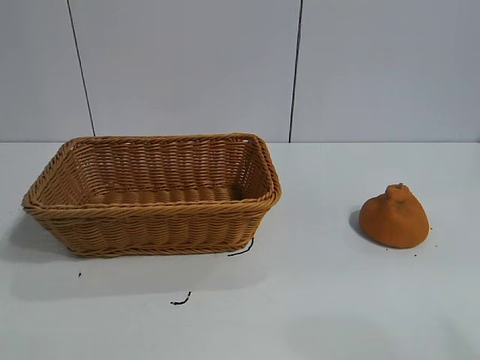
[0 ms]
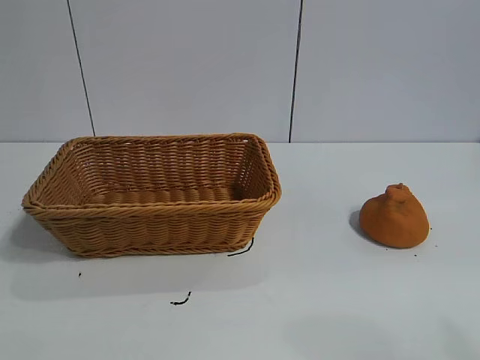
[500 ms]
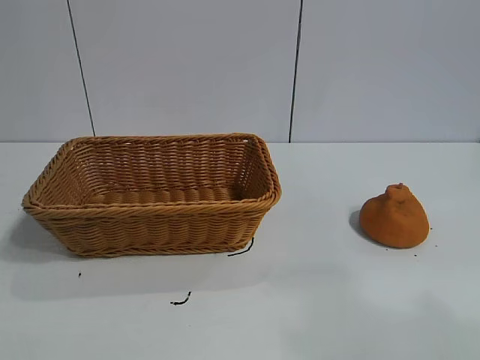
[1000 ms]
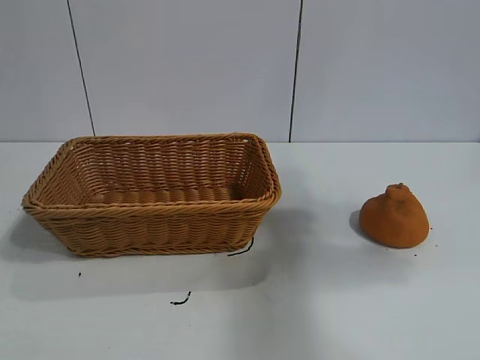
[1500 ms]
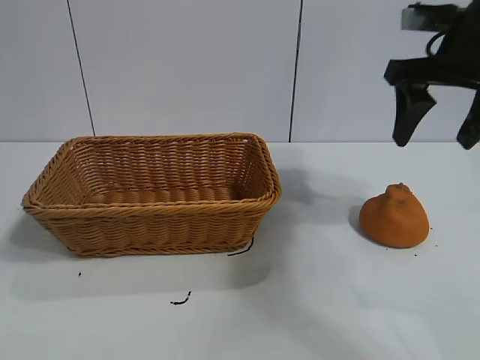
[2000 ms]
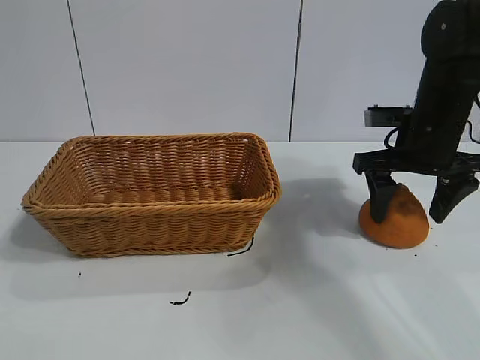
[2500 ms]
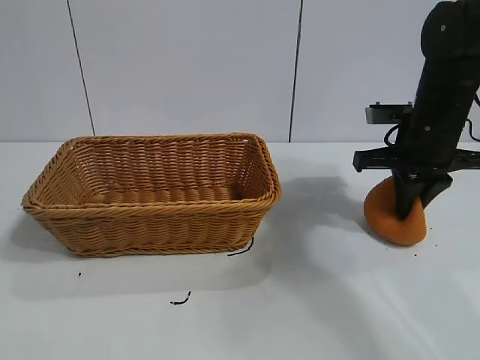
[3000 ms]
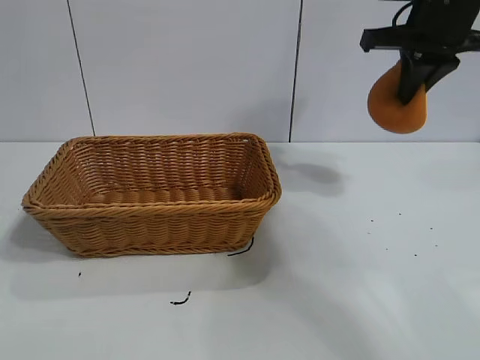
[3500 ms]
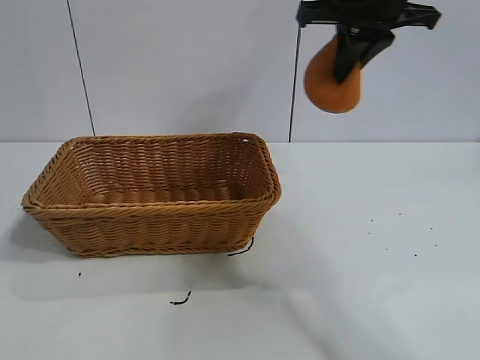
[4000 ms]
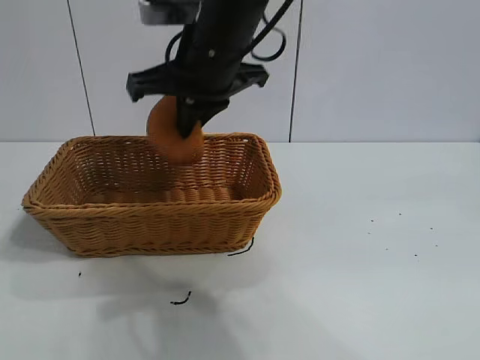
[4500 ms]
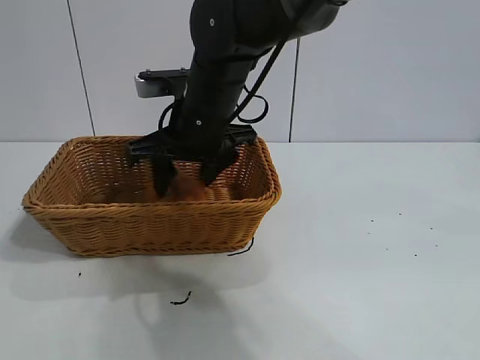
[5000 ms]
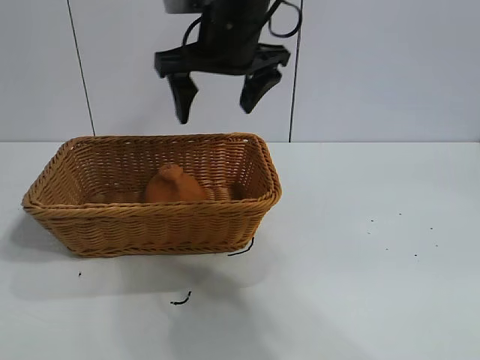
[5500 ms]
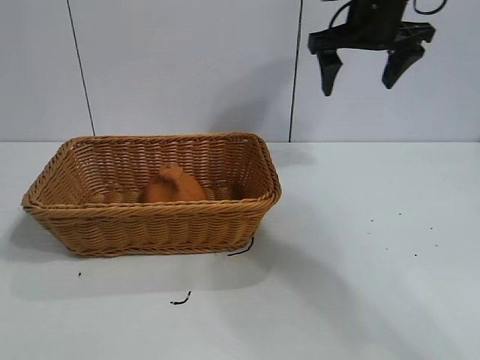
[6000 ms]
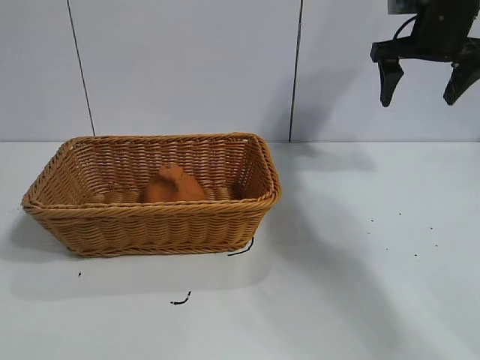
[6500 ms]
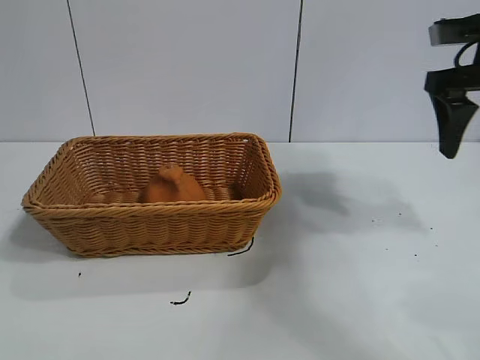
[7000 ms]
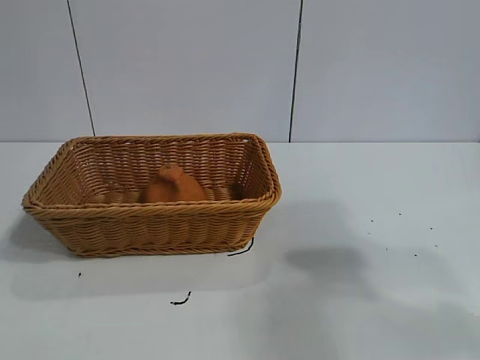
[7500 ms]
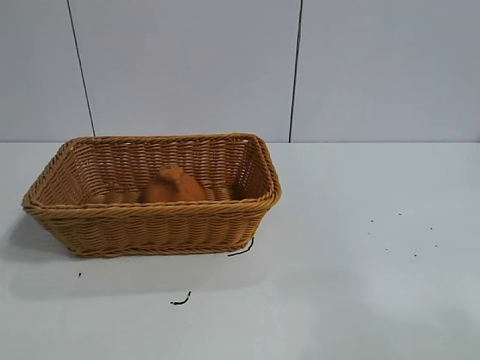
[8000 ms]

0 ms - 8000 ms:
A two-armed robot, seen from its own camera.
Task of the whole recording: pick up the orange and put it into the basket.
Step, 1000 ms - 3000 ms: Grasp the orange with right gripper.
Step, 3500 ms - 5000 ms: Place the orange in the basket with right gripper.

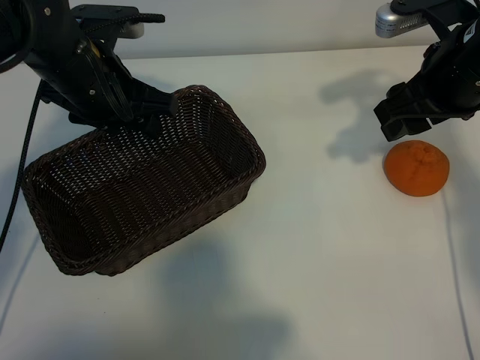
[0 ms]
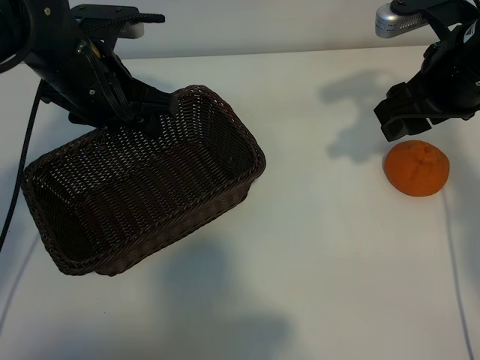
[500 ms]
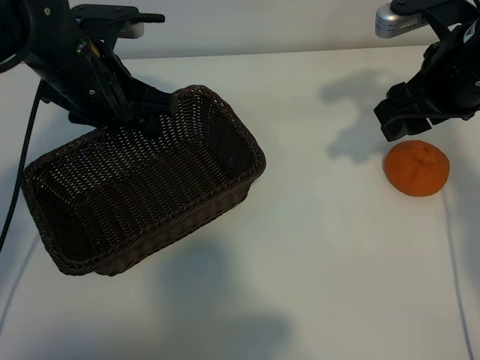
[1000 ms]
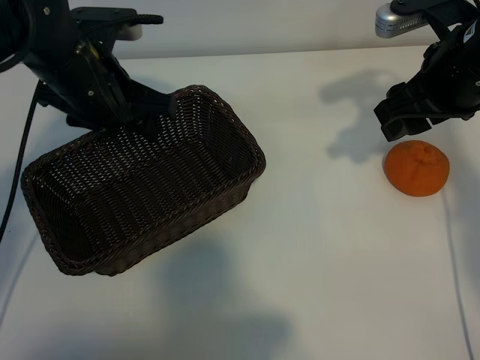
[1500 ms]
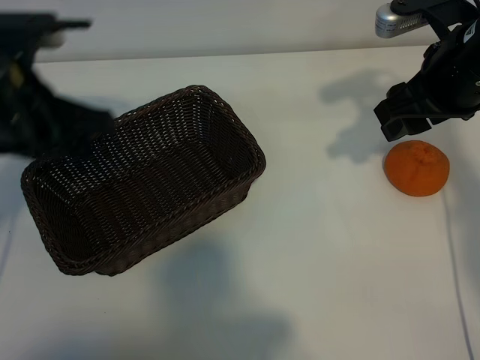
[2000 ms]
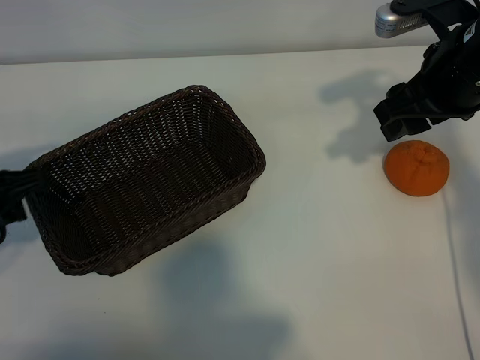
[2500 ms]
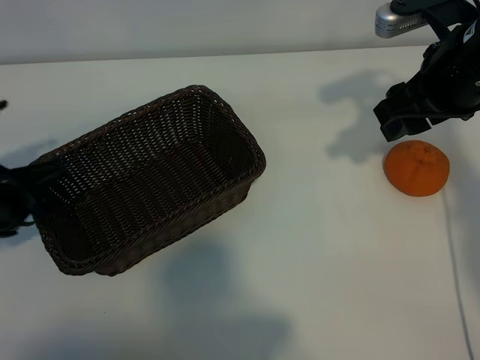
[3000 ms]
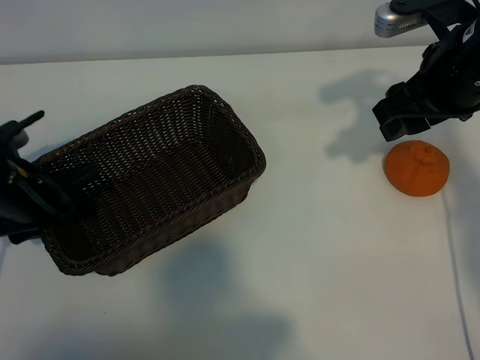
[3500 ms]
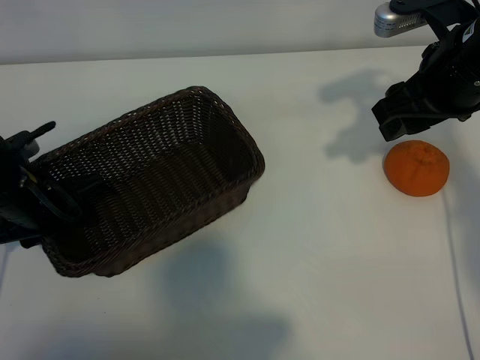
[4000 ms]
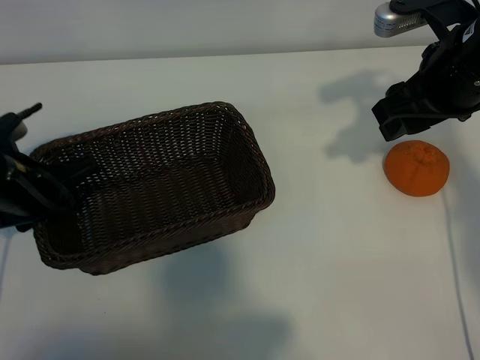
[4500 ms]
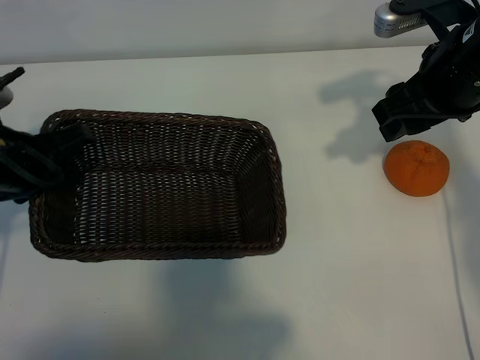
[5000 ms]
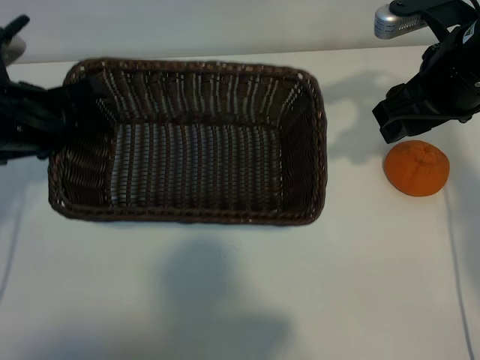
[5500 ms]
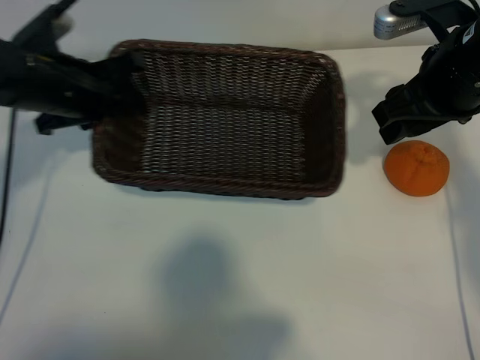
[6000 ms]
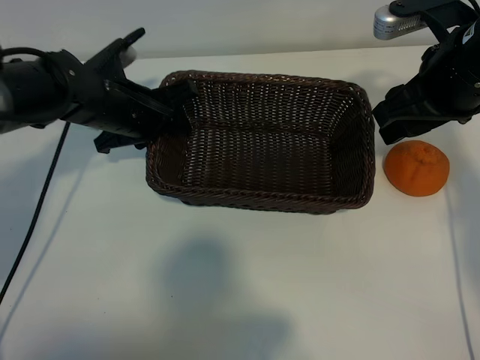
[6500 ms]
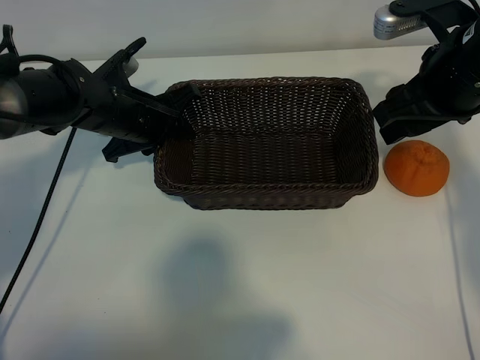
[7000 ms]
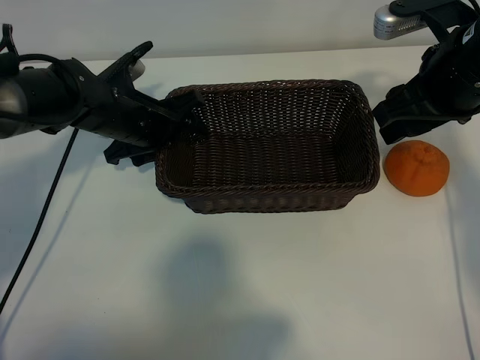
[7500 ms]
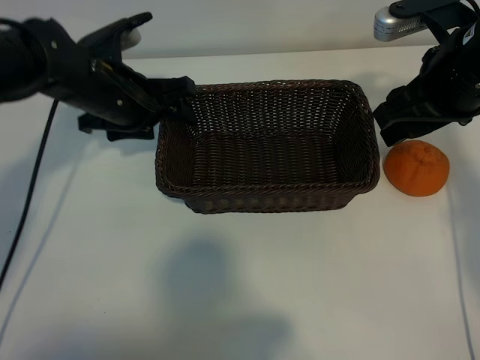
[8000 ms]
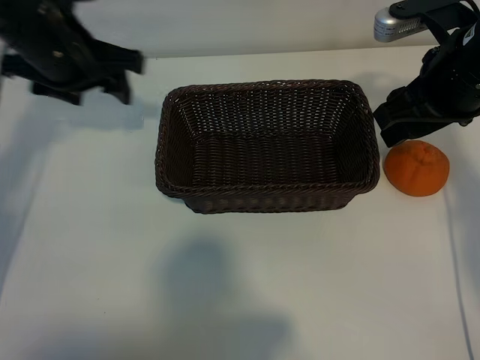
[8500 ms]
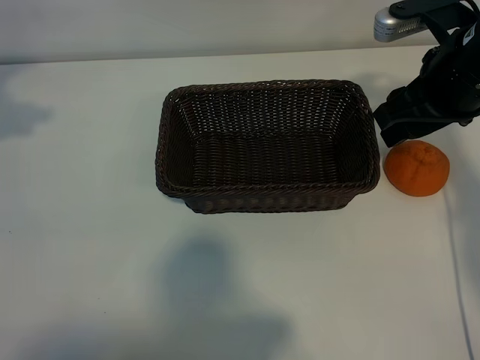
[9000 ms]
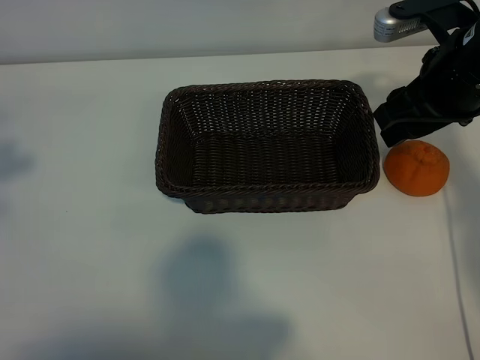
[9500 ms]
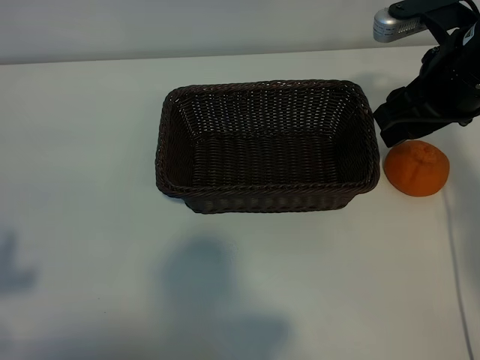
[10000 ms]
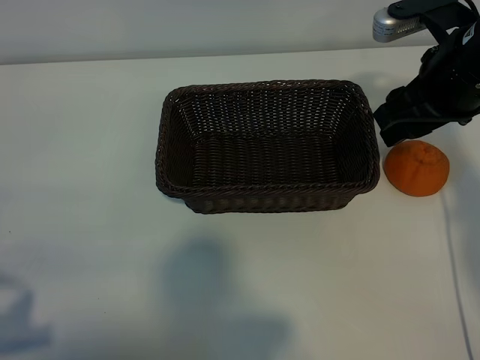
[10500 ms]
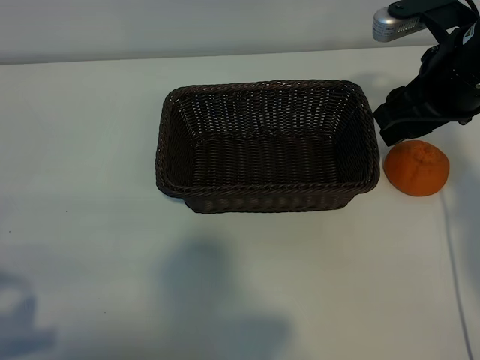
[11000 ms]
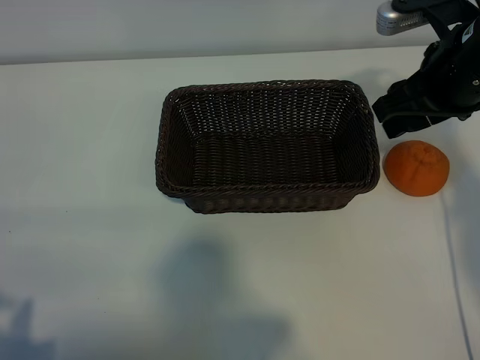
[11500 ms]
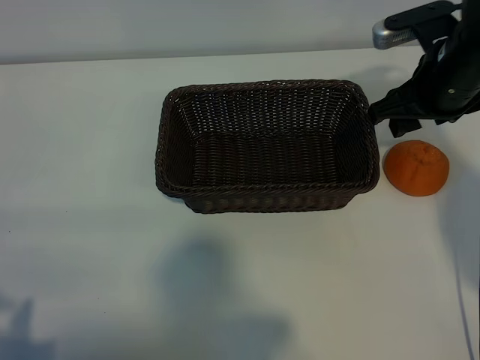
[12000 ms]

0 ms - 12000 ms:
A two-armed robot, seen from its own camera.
Task of the whole recording: pick up the orange and put it into the basket.
Step, 1500 ms - 4000 ms: Grasp the basket with left gripper.
Step, 4500 ms - 7000 ms: Place the basket in the center of view with left gripper.

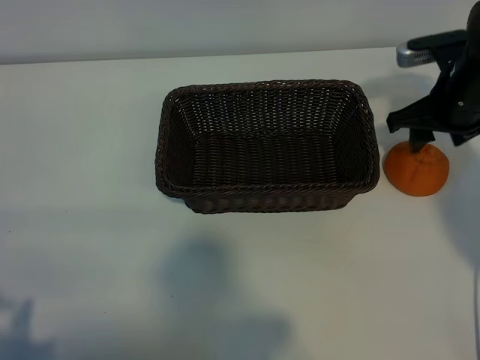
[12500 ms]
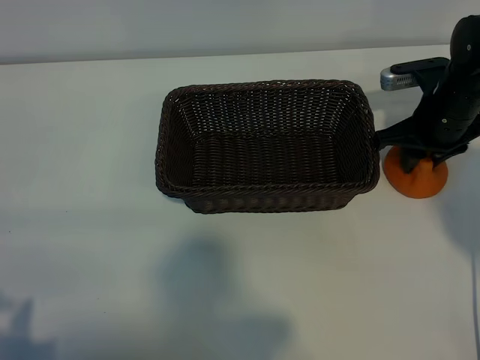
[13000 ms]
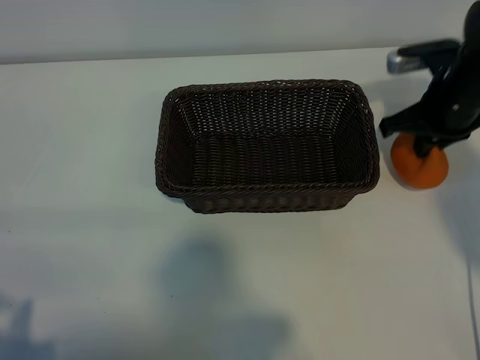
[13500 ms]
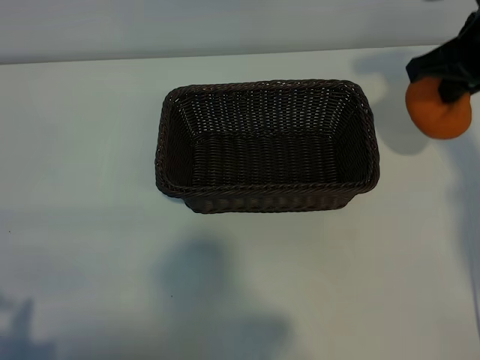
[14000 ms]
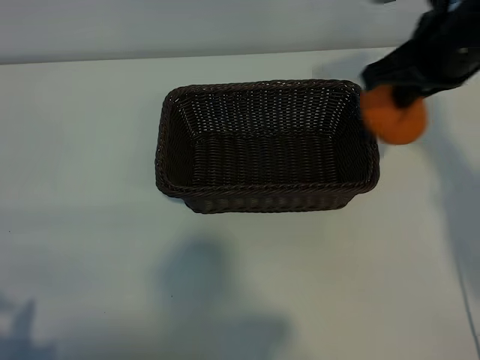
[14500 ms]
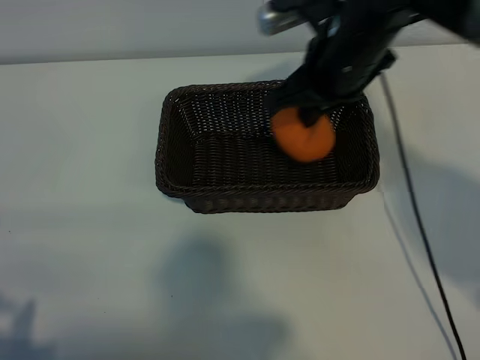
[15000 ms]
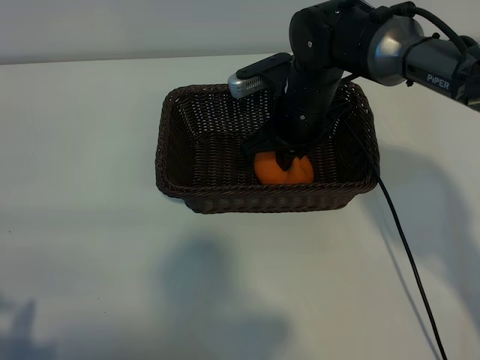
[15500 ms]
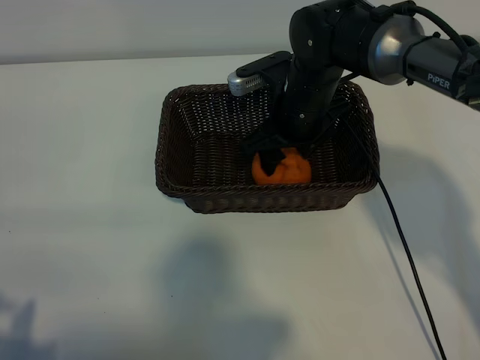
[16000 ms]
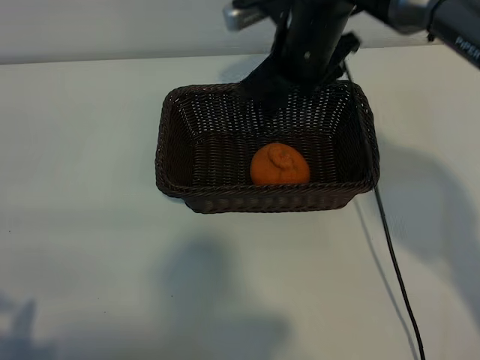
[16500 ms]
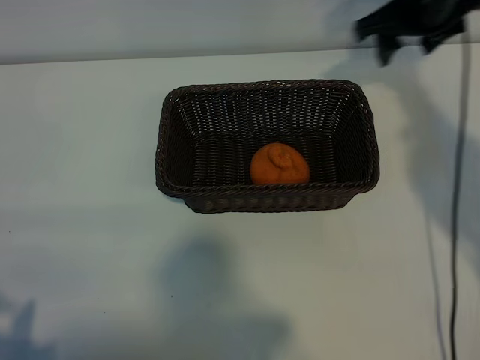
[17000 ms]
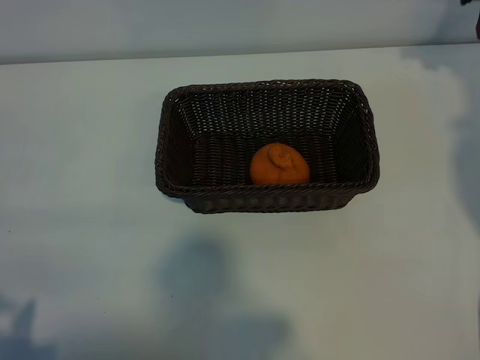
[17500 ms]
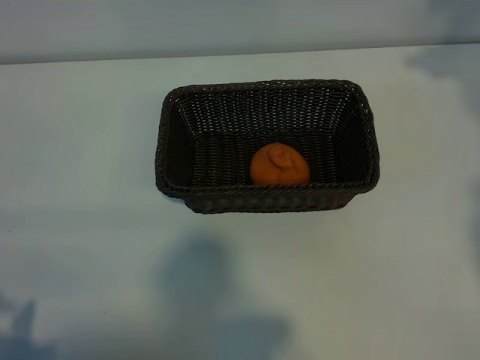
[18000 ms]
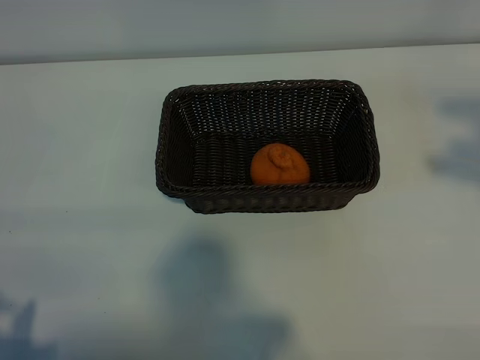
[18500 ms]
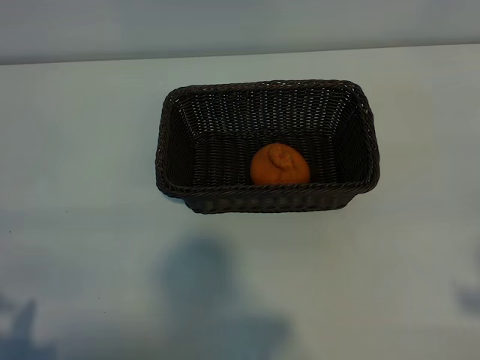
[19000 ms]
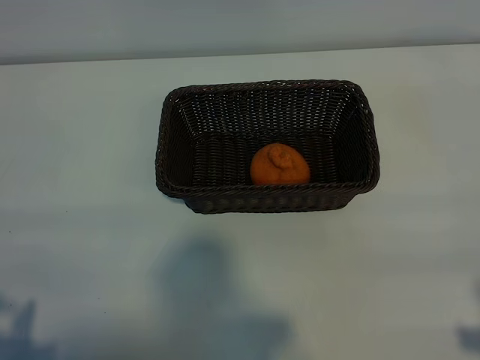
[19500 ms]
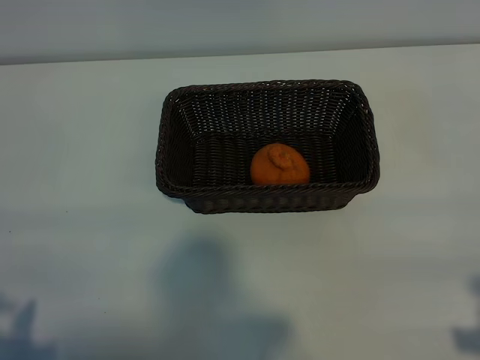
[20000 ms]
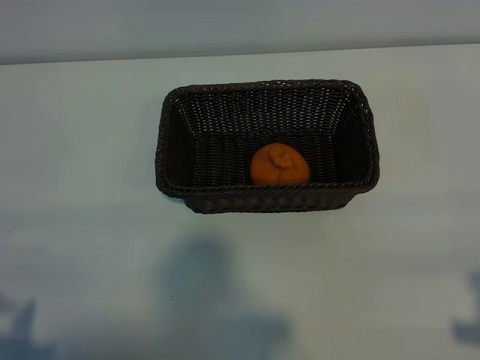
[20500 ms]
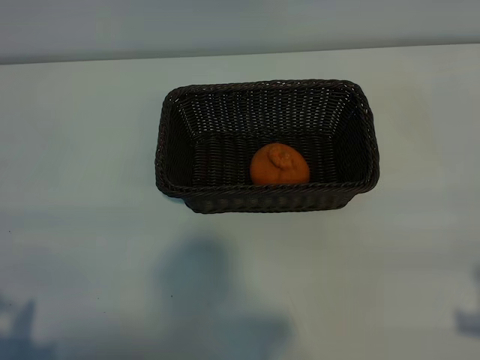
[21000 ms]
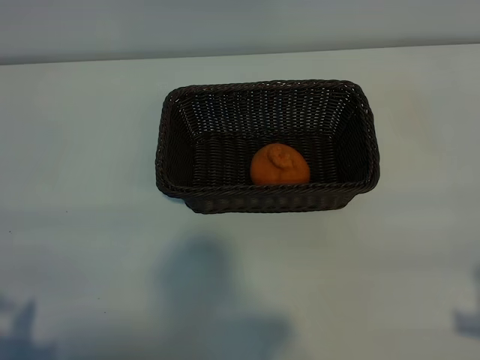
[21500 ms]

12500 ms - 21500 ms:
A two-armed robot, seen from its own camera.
Task of the whole recording: pick up the orange and put it into the basket.
Step, 13500 ms - 16000 ms: Place the orange in the basket with right gripper.
